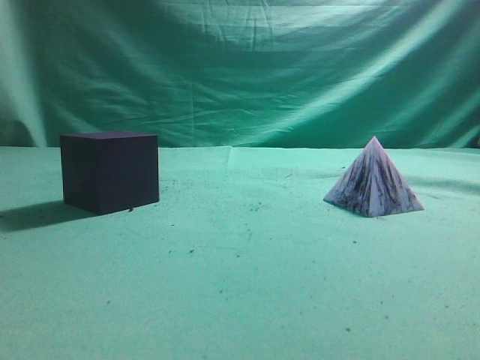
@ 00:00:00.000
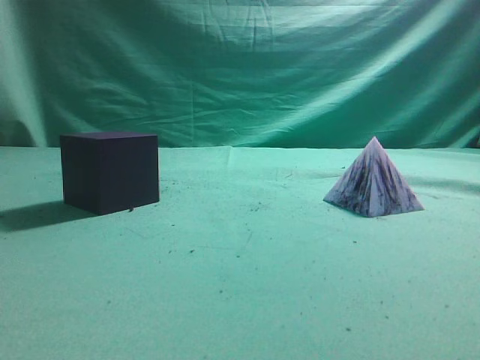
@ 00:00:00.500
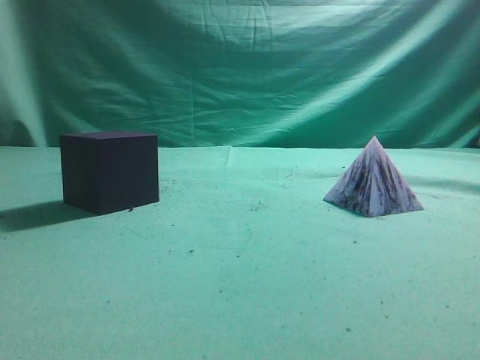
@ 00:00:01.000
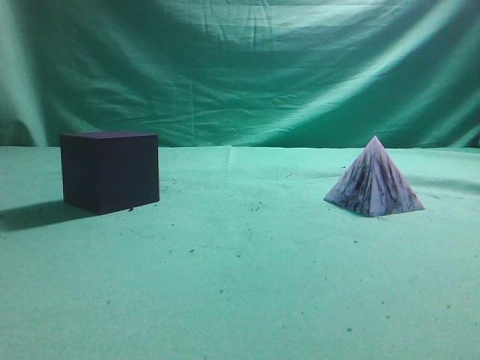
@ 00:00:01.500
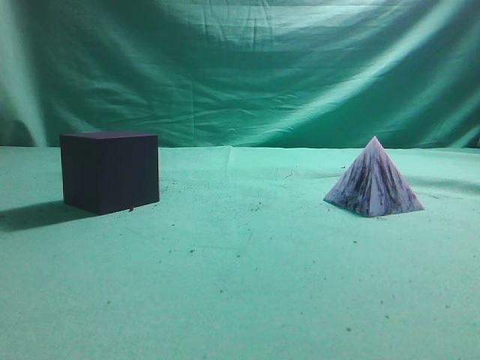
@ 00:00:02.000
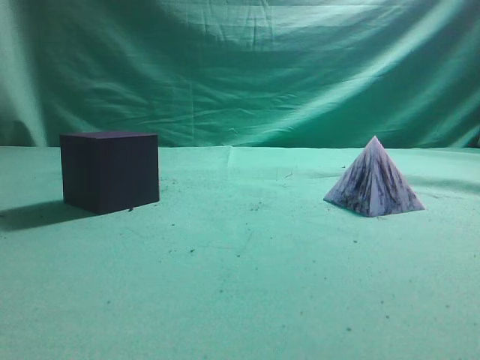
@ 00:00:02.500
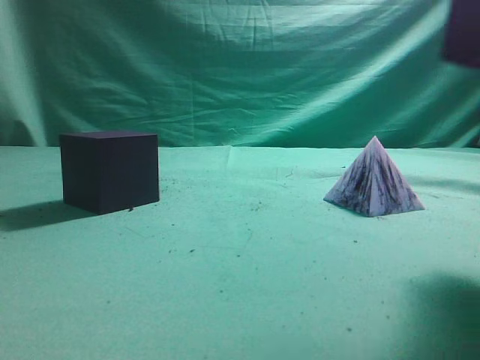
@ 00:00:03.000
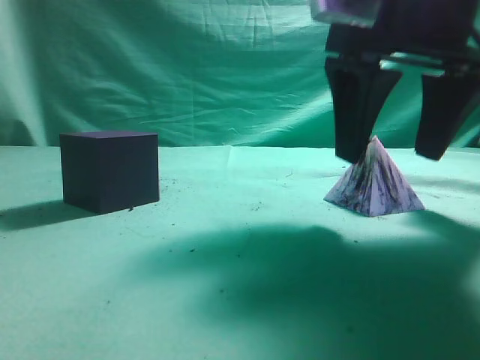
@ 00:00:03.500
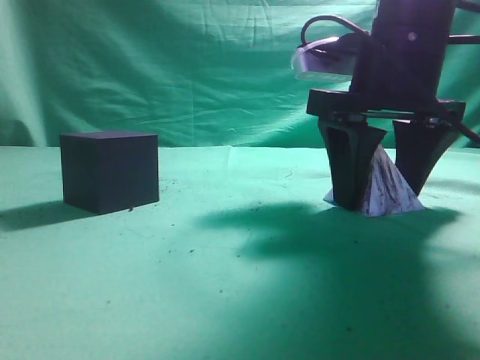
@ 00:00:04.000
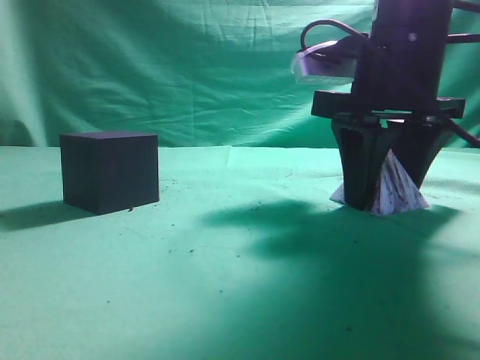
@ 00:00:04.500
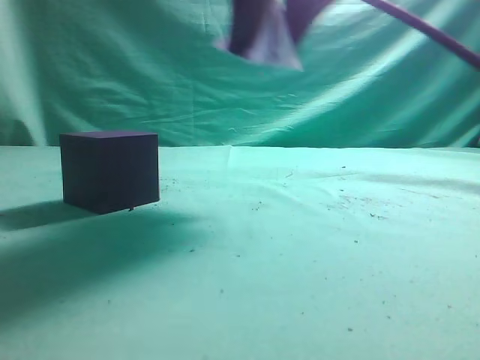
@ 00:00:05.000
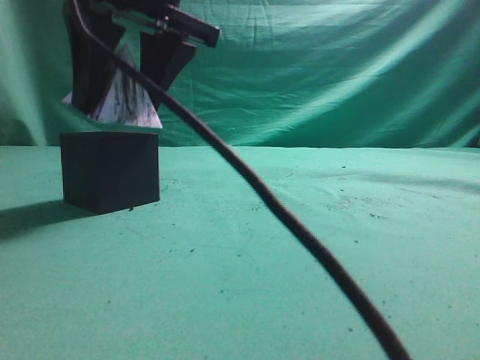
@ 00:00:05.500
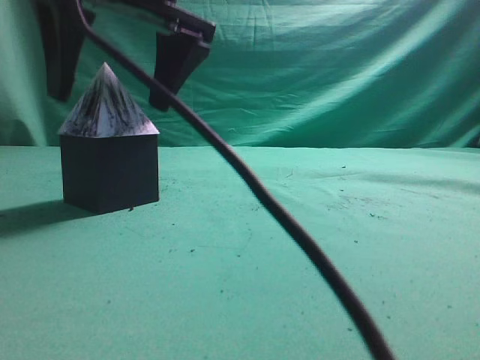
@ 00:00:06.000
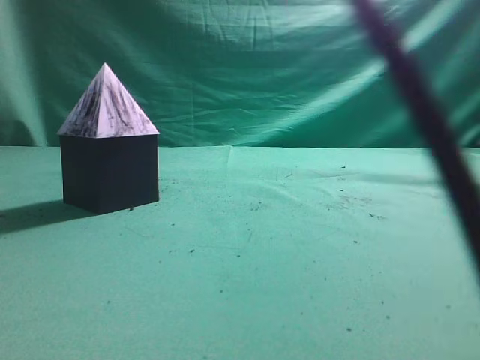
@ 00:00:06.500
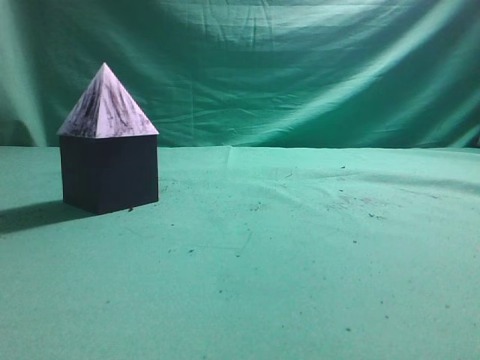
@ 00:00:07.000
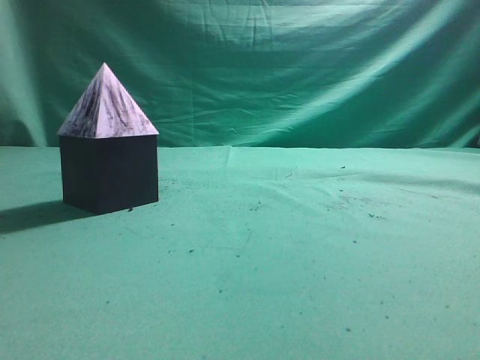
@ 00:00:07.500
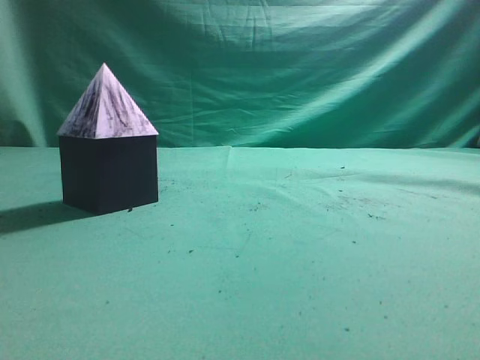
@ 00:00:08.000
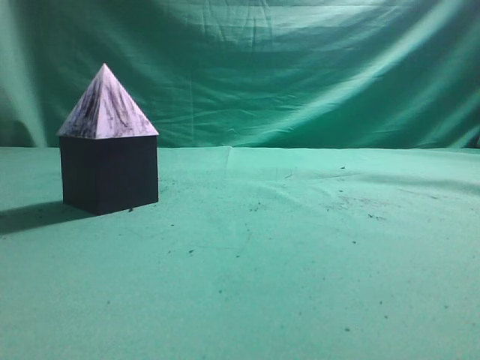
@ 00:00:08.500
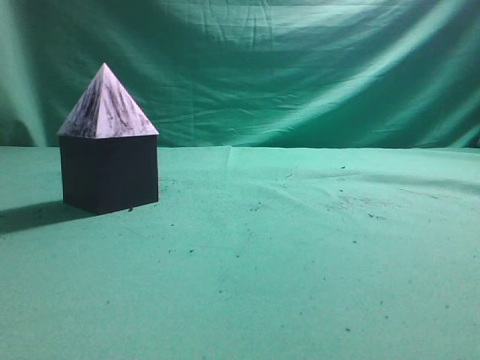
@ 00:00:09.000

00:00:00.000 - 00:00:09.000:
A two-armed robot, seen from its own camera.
Task of the whole recording: pick up the square pyramid from the table and place it on the cube block.
Step, 00:00:00.000 - 00:00:04.500: Grasp the triangular block.
Step, 00:00:05.000 - 00:00:06.000: Place the block onto the cube-shaped block.
00:00:02.000 - 00:00:04.500: The right gripper goes approximately 30 cm forward, to the left and downward, and opens.
00:00:04.500 - 00:00:07.000: The right gripper moves upward and backward, about 30 cm, and closes up.
